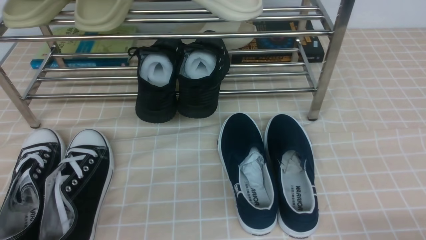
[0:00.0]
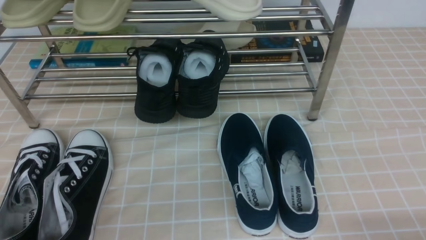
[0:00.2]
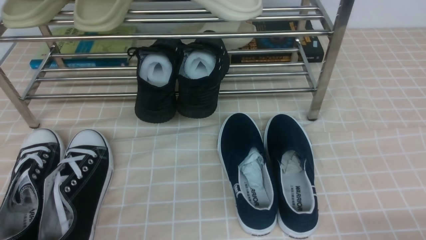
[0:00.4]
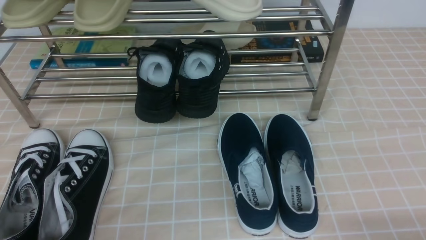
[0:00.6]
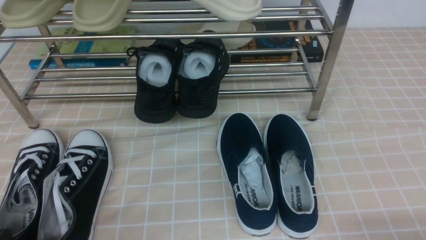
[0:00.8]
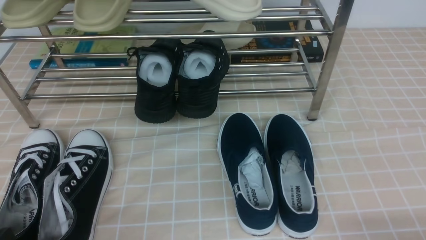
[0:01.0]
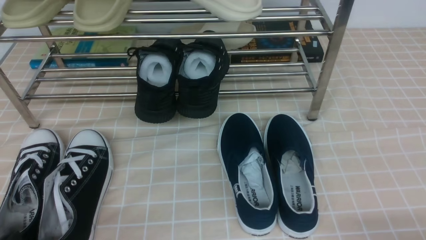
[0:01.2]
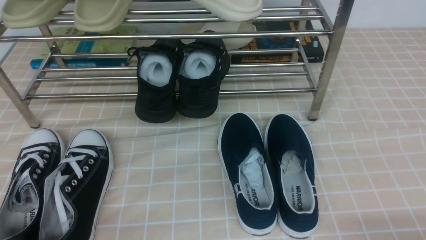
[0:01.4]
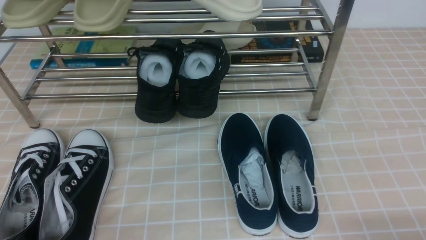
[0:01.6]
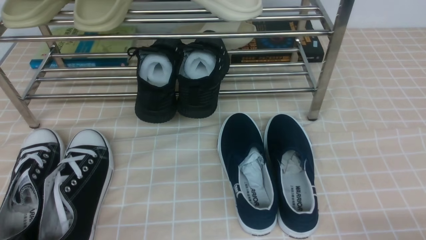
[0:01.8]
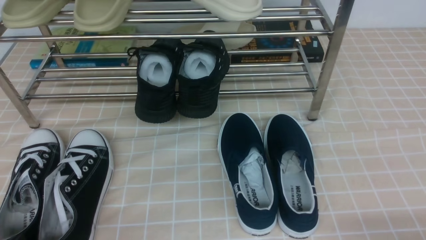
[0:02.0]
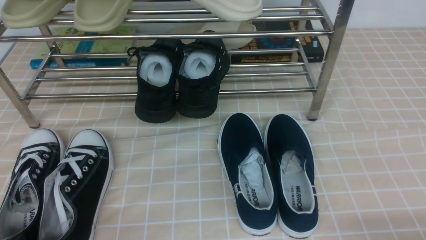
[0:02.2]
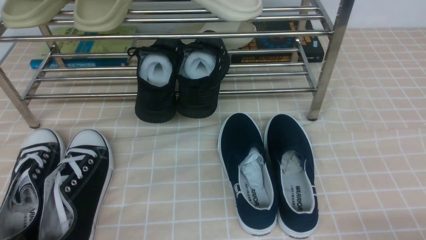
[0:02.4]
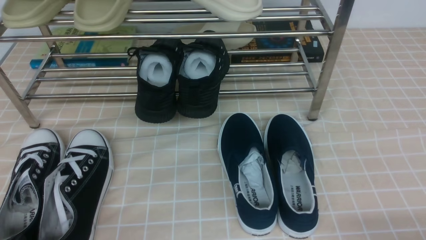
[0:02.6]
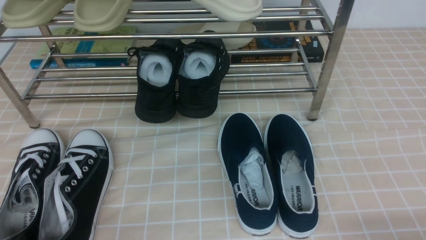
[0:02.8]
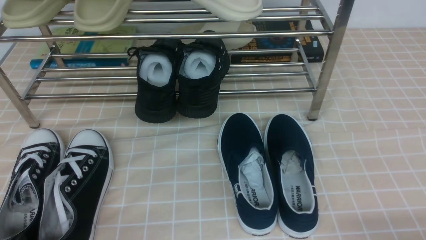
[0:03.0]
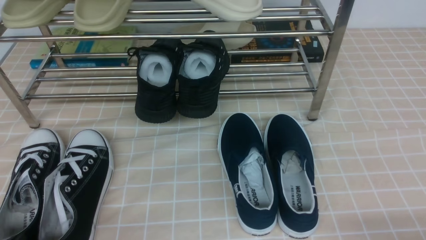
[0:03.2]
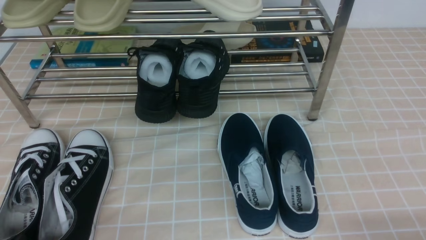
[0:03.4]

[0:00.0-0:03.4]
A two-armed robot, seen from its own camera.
0:00.0 to 0:01.6: The left gripper travels downward by about 15 cm.
0:01.6 to 0:03.4: Both grippers stay put.

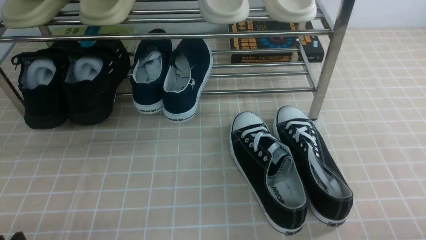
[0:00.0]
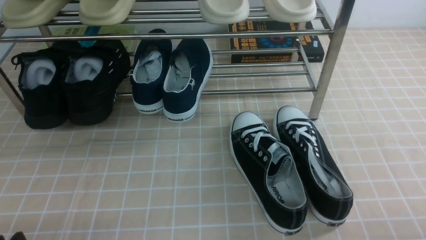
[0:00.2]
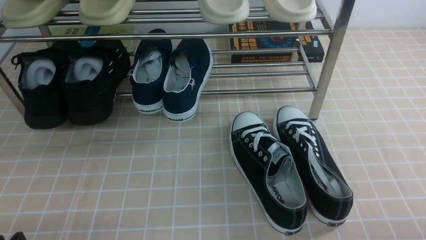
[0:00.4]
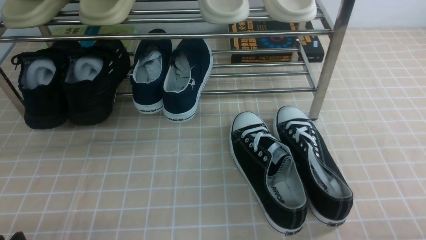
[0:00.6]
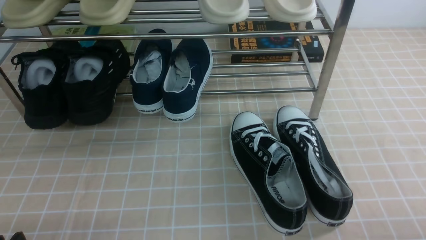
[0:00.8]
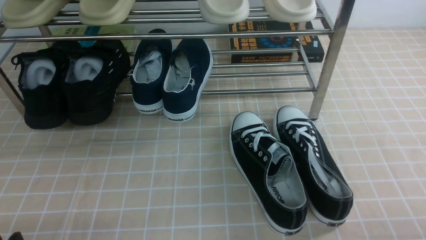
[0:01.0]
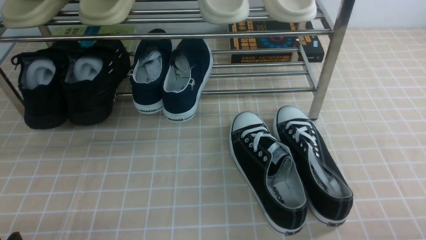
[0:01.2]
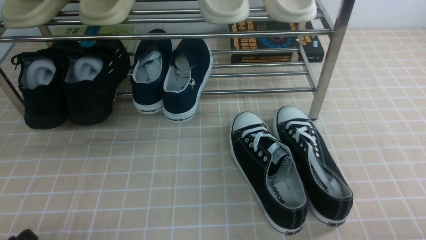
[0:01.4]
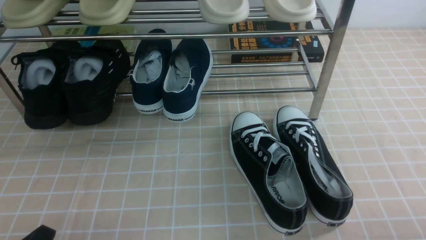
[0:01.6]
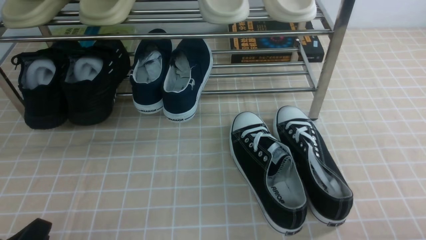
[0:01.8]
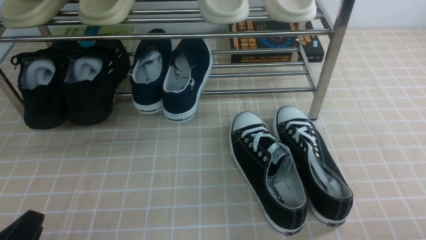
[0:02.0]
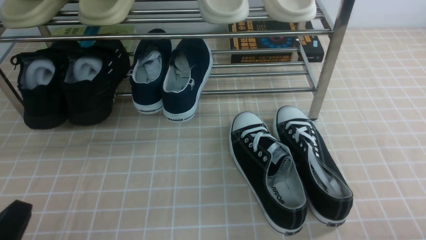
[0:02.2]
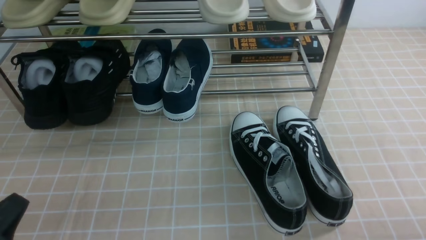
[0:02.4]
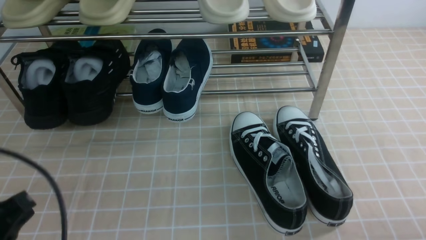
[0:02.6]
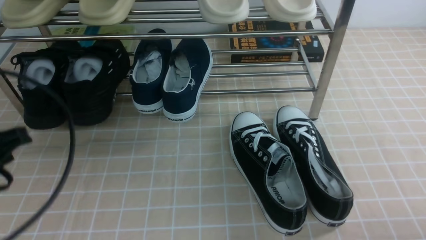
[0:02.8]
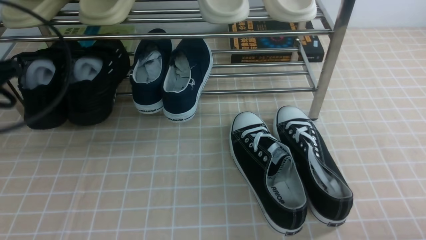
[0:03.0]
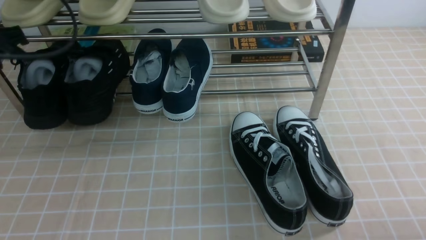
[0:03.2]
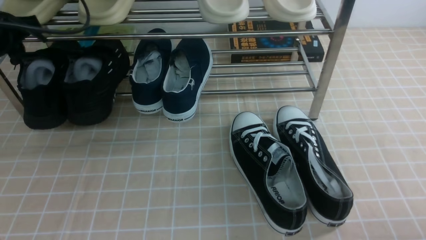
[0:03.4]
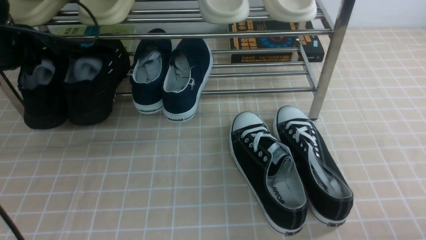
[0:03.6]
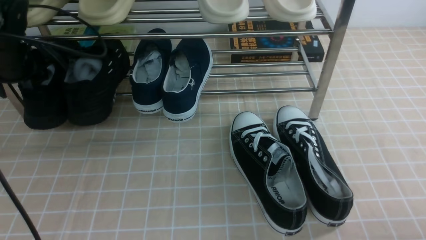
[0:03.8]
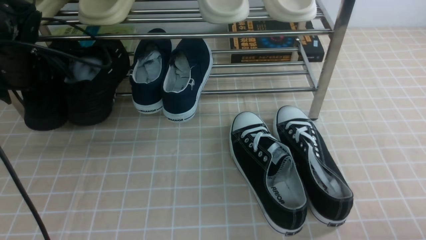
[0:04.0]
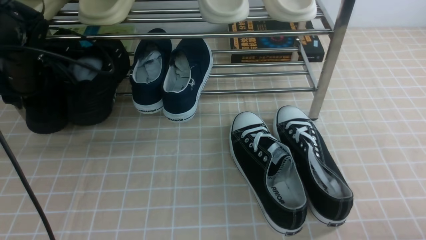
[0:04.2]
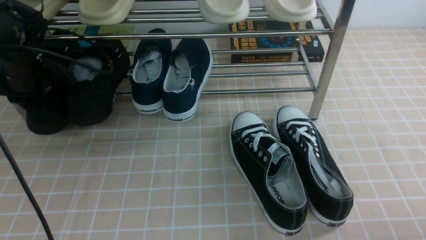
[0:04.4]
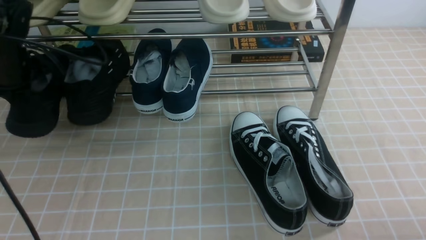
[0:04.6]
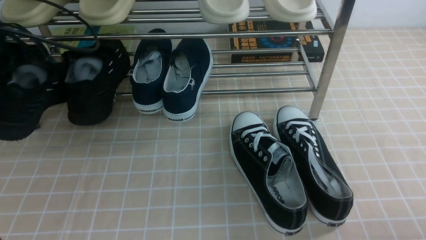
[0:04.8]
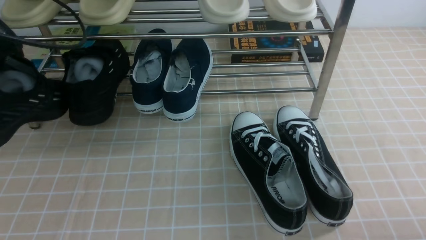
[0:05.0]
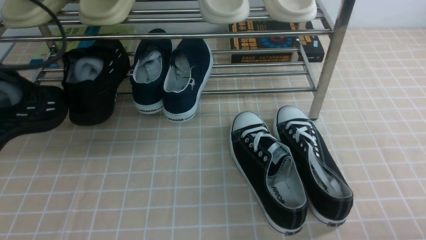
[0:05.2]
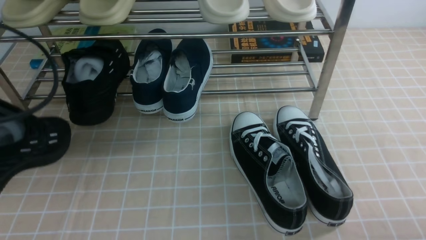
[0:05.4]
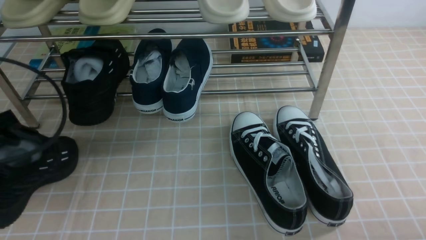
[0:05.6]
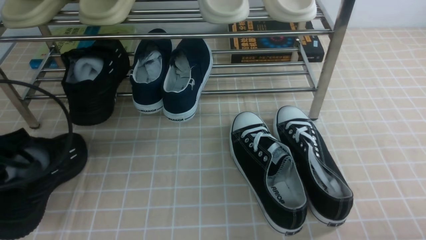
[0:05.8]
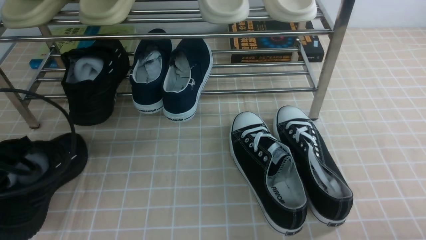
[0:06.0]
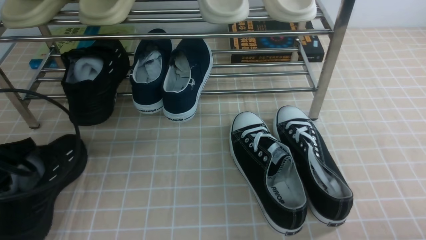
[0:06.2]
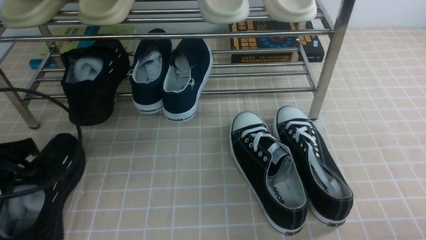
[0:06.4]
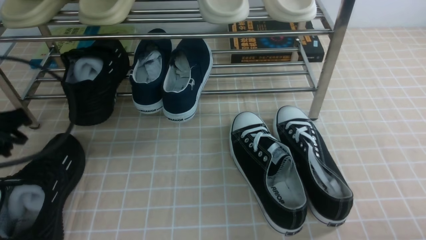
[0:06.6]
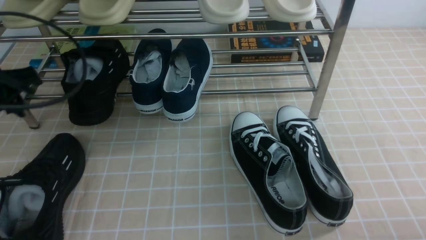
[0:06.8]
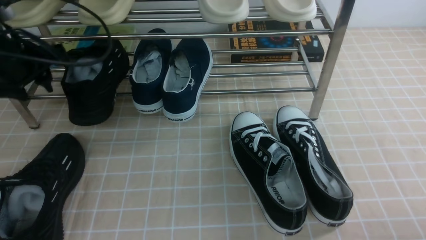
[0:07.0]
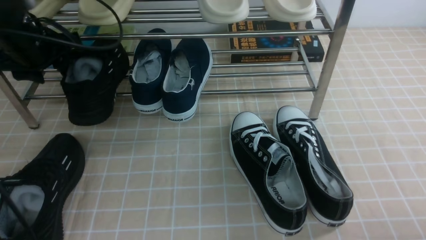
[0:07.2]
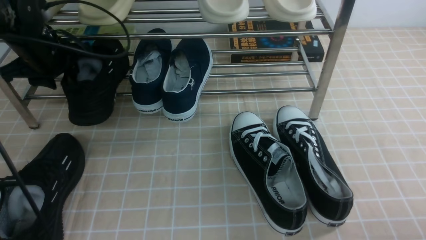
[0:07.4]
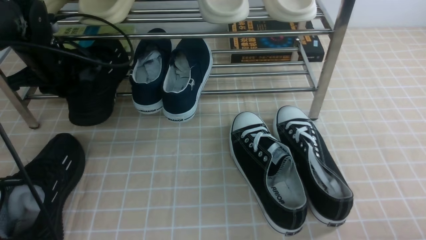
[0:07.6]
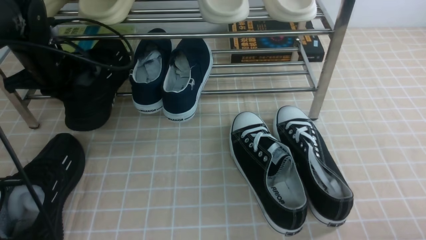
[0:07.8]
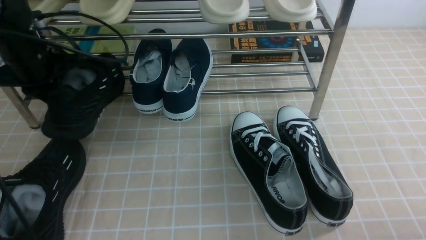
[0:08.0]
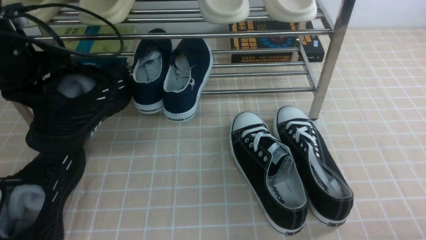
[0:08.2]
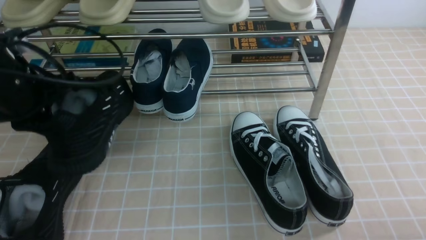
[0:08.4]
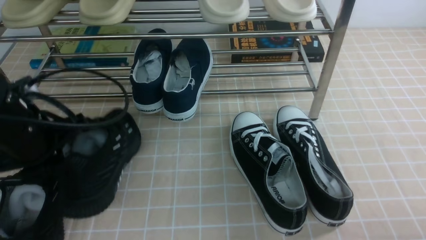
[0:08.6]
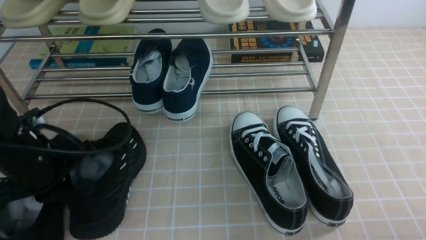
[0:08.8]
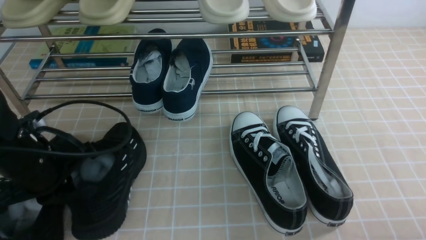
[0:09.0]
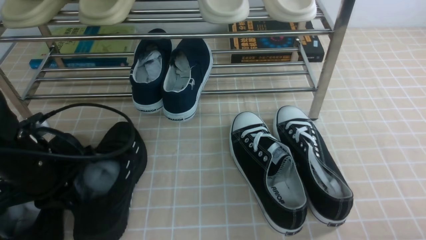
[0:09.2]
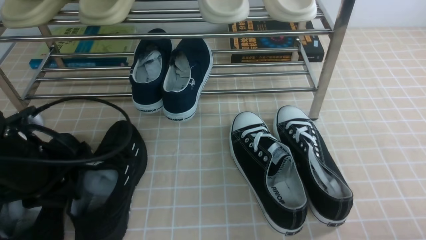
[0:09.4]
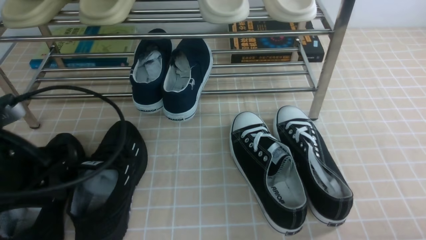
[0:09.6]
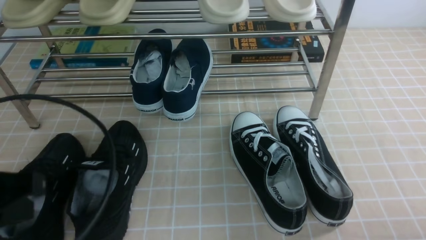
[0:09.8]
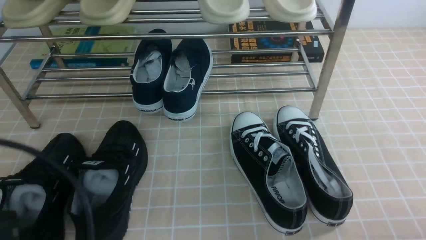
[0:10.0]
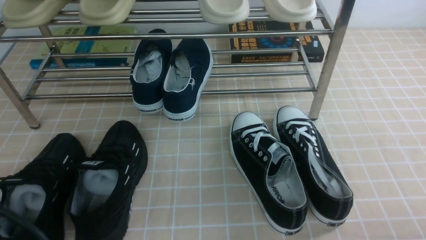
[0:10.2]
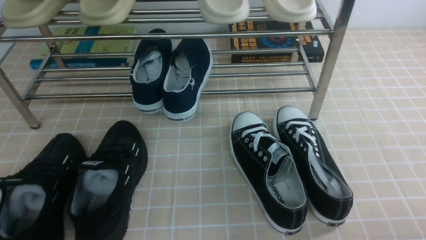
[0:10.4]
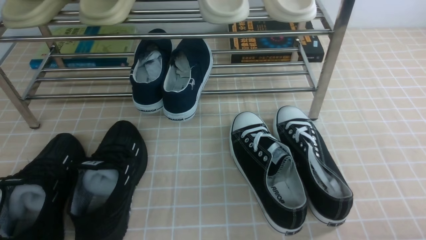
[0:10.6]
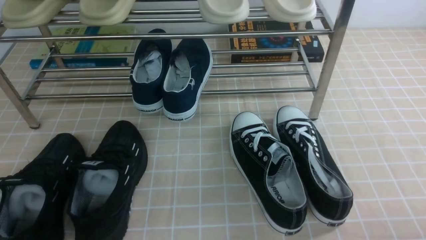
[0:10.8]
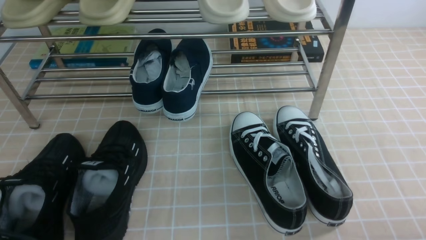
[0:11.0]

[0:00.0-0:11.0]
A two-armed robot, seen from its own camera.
Step, 0:00.0 to 0:04.4: use the left arm to clamp a shoe on the left side of the shoe rack.
Step, 0:04.6 to 0:06.2: Use your left arm to remove the clamped shoe from the shoe rack and put it down.
Step, 0:06.4 to 0:07.6: use the left arm to clamp a shoe on the left side of the shoe rack.
Step, 0:08.0 to 0:09.6: Use your left arm to remove the clamped shoe from the shoe rack and put it down.
0:01.6 to 0:03.2: The left gripper is displaced forward and upward by roughly 30 cm, and closes, then opens again.
0:03.2 to 0:04.8: The left gripper reaches some 10 cm forward, then returns, and closes its fingers.
0:04.8 to 0:06.2: The left gripper travels backward and downward by some 15 cm.
0:06.2 to 0:07.8: The left gripper travels forward by some 20 cm, and opens, then closes once more.
0:07.8 to 0:09.4: The left gripper heads backward, covering roughly 20 cm.
0:09.4 to 0:11.0: The left gripper is displaced backward by some 15 cm, and closes up.

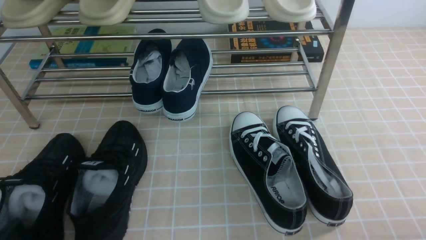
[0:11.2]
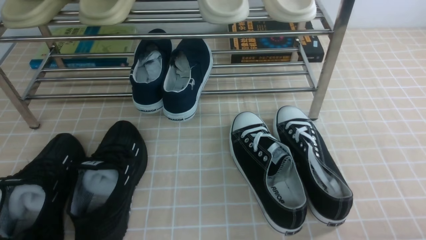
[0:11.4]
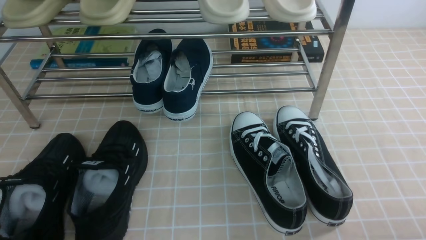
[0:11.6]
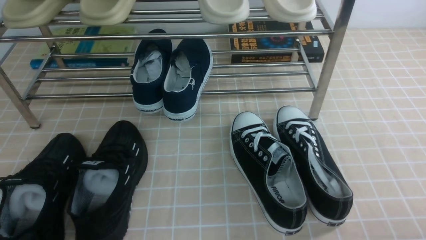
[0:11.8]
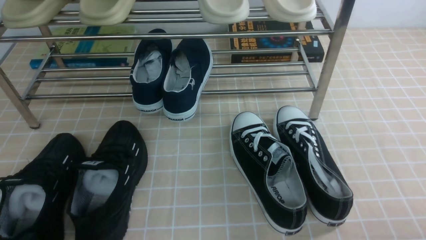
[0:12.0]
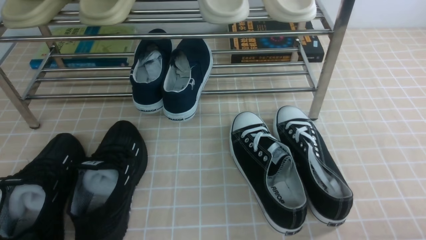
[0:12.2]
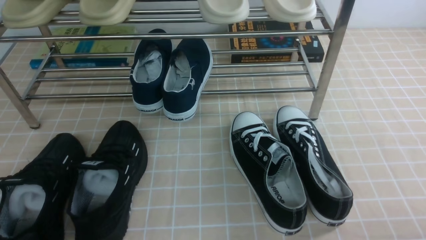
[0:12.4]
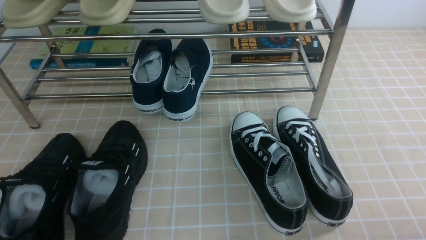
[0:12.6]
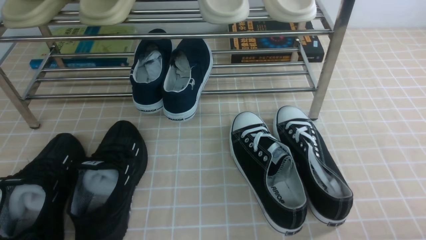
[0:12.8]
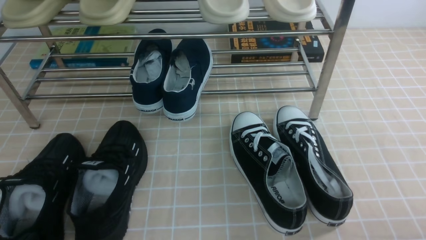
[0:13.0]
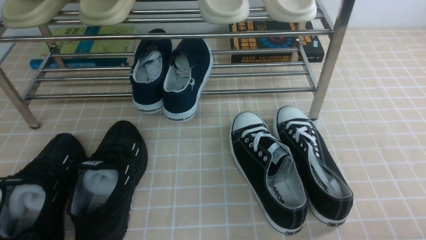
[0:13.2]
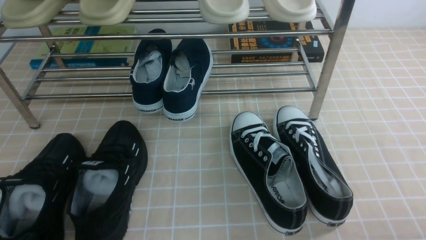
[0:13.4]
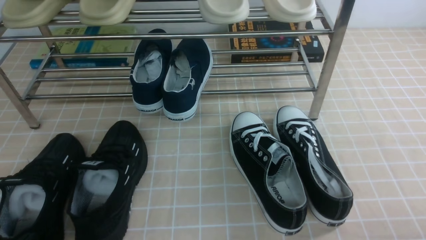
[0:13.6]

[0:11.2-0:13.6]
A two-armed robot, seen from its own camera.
0:12.4 to 0:13.6: Both grippers stay put.
